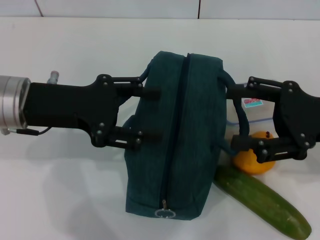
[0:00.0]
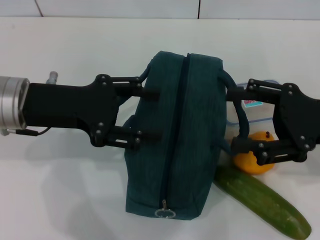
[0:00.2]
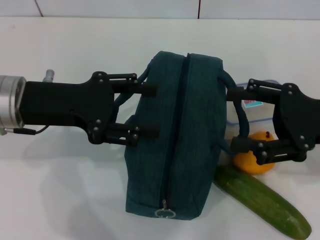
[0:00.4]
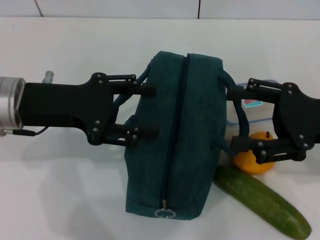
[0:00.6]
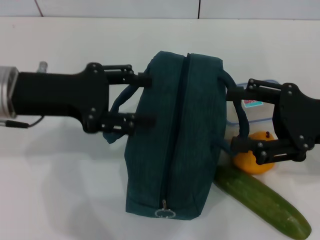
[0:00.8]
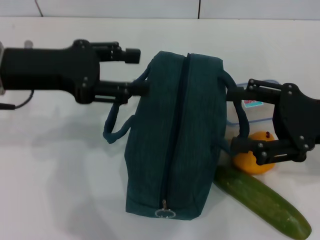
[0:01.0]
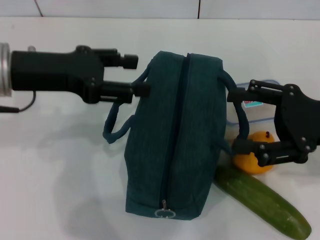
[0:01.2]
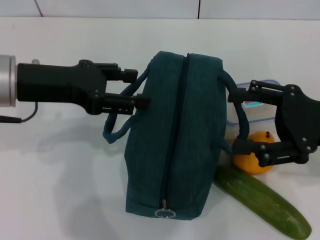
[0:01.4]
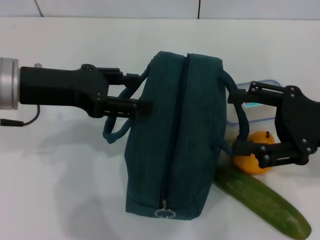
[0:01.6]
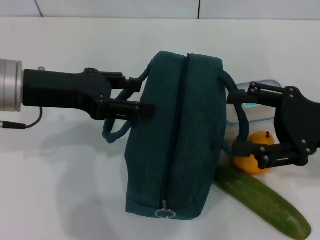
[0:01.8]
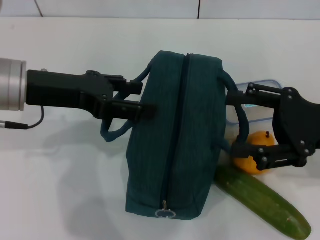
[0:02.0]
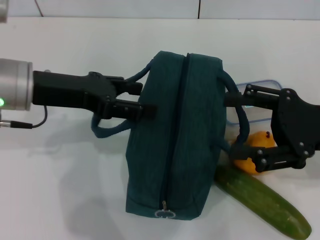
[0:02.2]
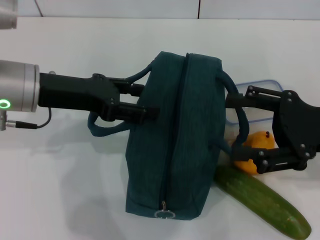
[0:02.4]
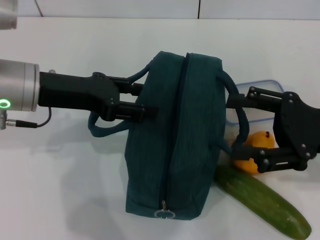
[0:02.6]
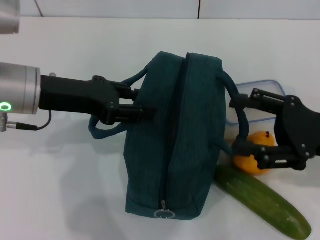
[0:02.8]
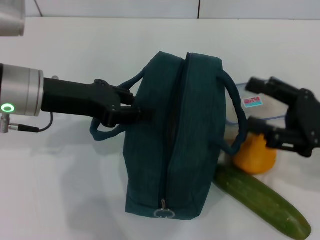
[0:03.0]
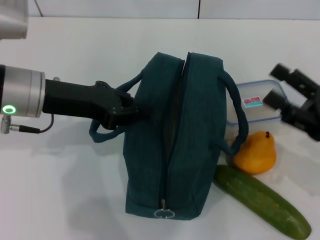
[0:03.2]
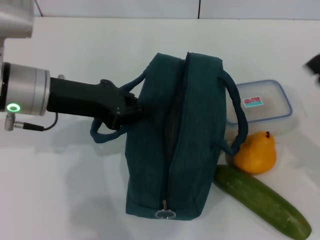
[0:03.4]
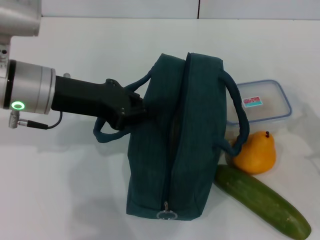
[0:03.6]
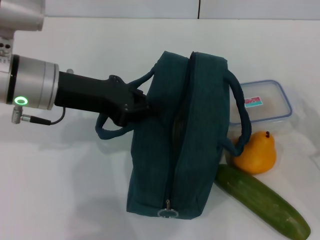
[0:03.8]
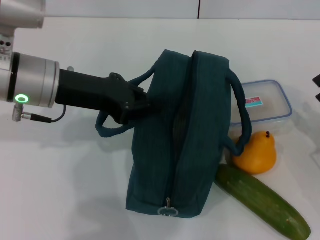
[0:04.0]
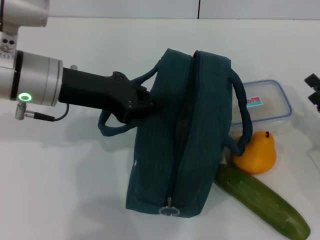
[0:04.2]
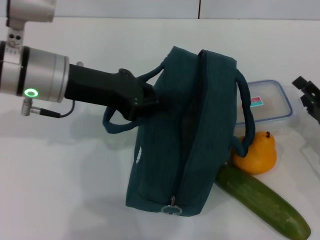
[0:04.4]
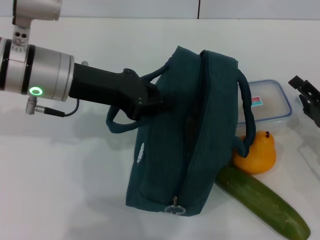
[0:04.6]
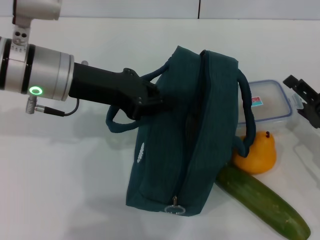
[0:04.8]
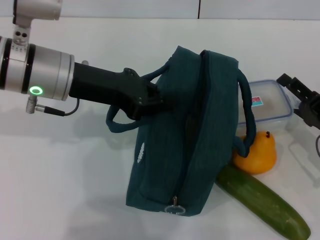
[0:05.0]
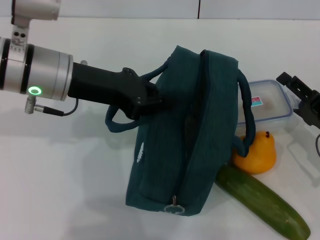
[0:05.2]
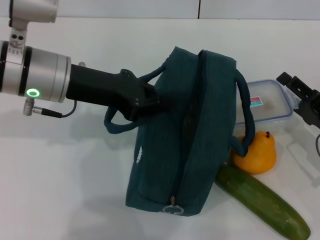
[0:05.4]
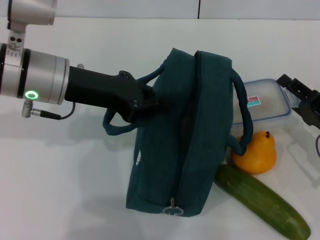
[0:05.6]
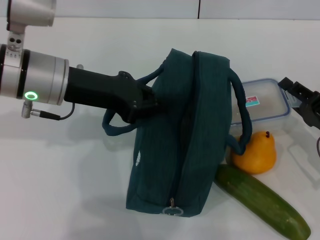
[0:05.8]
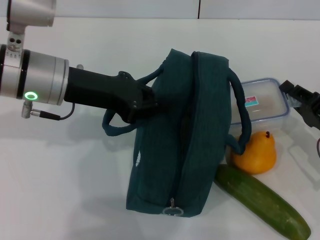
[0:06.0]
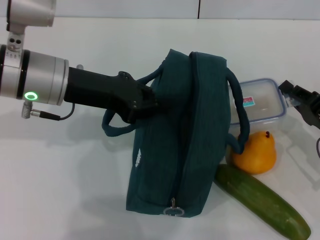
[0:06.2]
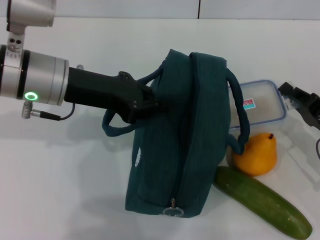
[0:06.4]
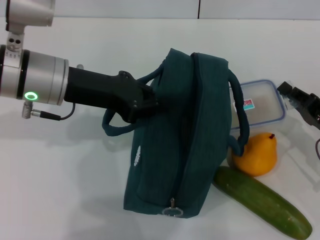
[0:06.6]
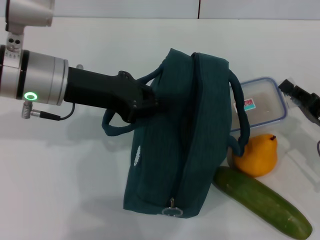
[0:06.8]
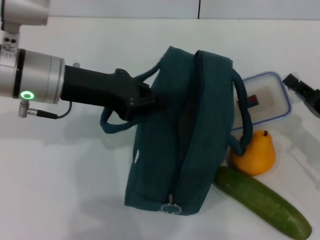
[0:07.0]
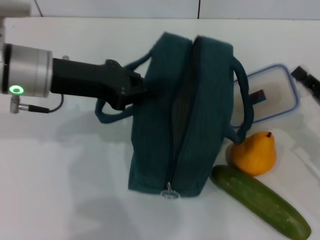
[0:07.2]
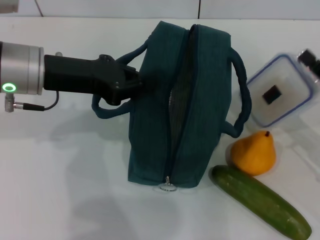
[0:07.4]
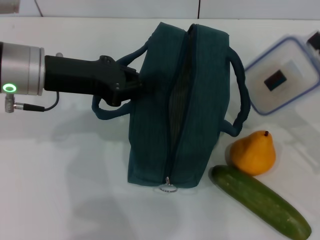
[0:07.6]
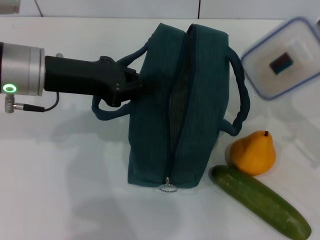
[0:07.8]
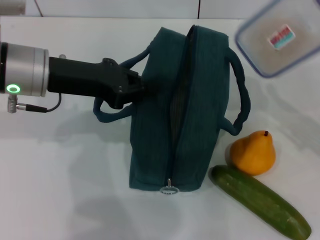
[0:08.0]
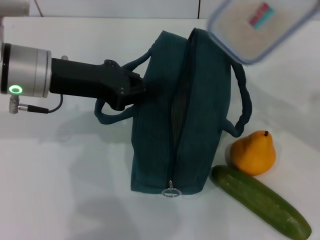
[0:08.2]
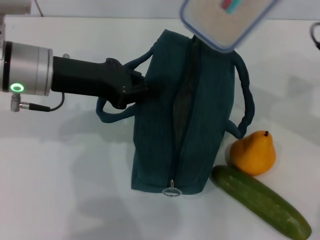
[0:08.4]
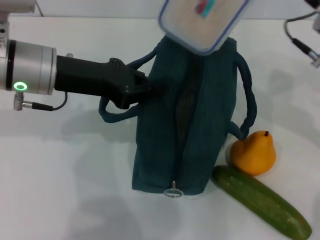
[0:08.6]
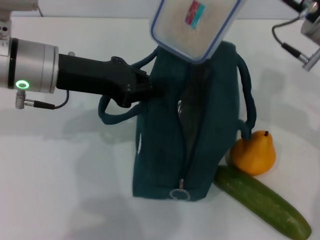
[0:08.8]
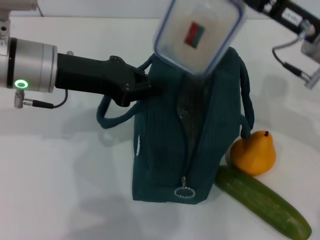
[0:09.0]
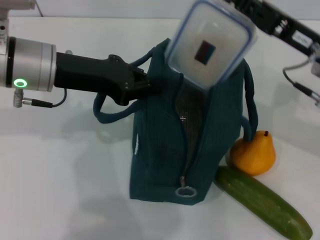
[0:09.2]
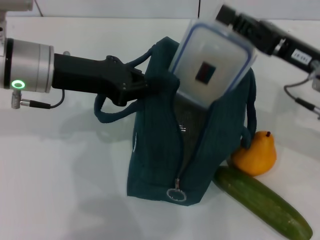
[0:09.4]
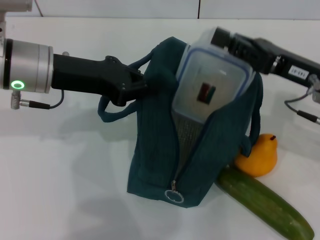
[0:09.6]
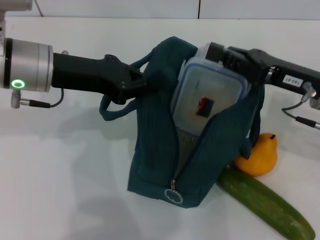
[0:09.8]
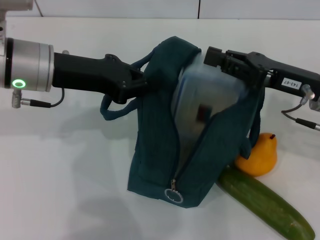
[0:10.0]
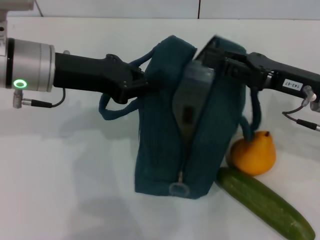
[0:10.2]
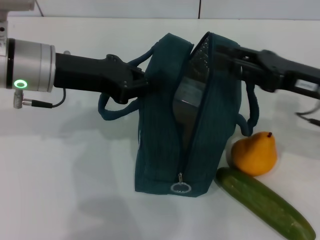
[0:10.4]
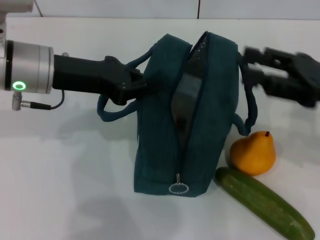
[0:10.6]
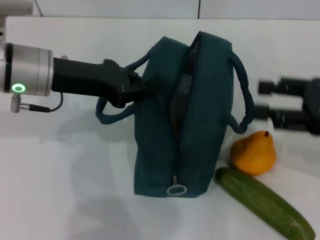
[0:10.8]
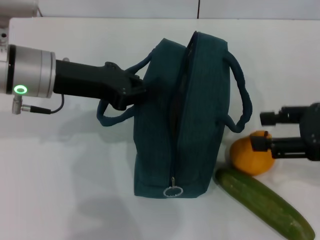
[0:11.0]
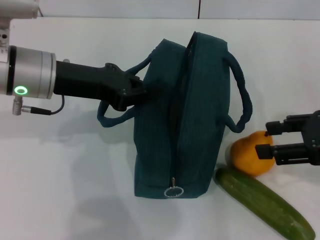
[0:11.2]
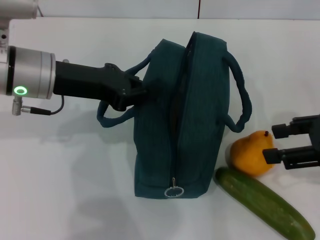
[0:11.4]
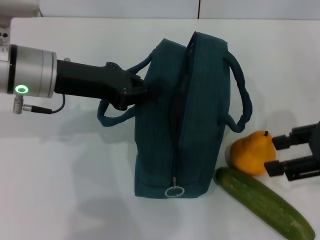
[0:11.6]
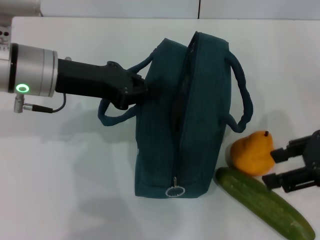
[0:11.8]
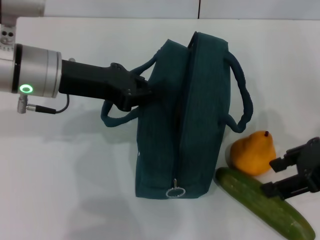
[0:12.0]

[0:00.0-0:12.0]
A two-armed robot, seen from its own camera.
Step, 0:00.0 to 0:04.0: Hold the lunch bag with your left hand.
Step, 0:04.2 to 0:06.0: Pick up the lunch box with your right hand.
Step, 0:06.2 to 0:10.2: Place the lunch box into the lunch bag with your right hand.
0:01.6 to 0:03.0: The left gripper closes up.
0:03.0 to 0:04.4: The left gripper closes; the right gripper travels downward by some 10 cm.
0:04.4 to 0:06.0: The right gripper closes up.
0:06.0 to 0:07.6: The right gripper is displaced upward by some 5 cm, and closes its fingers.
0:07.6 to 0:09.0: The right gripper shifts some 15 cm to the left, upward and forward.
0:09.0 to 0:10.4: The right gripper ends up roughly 5 cm from where it was.
0:10.4 to 0:12.0: The right gripper goes roughly 5 cm upward and backward, and opens its fingers.

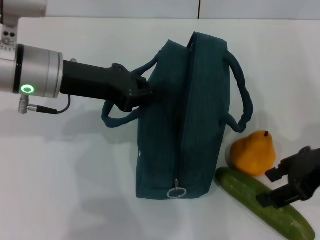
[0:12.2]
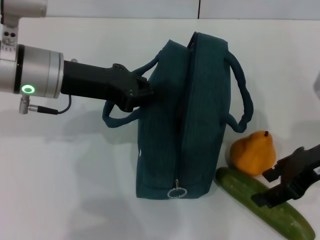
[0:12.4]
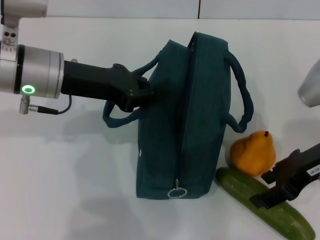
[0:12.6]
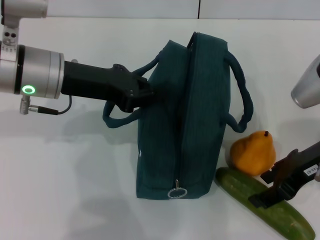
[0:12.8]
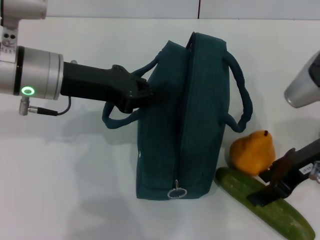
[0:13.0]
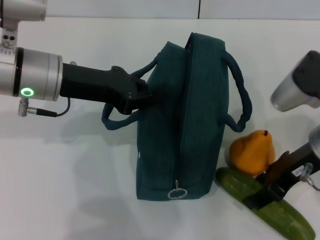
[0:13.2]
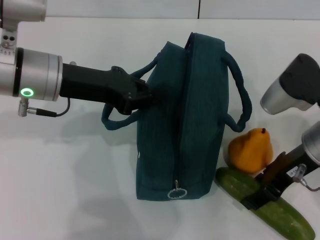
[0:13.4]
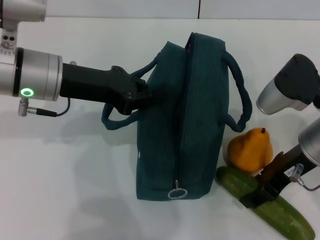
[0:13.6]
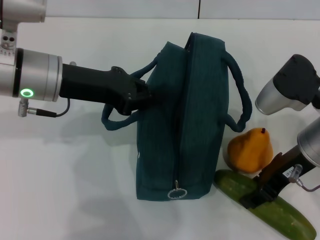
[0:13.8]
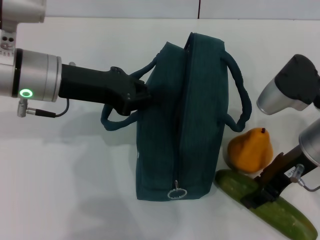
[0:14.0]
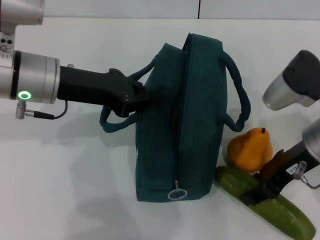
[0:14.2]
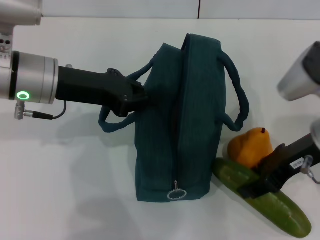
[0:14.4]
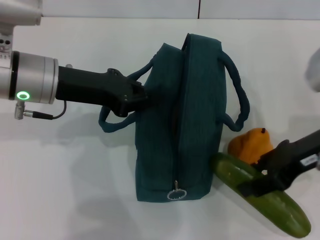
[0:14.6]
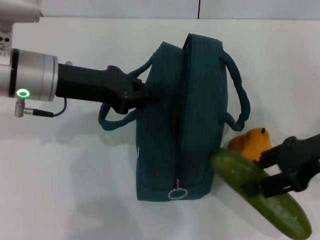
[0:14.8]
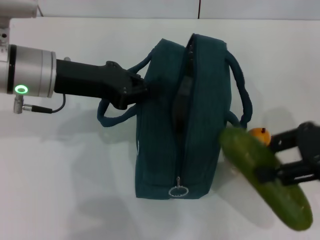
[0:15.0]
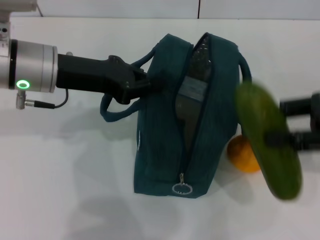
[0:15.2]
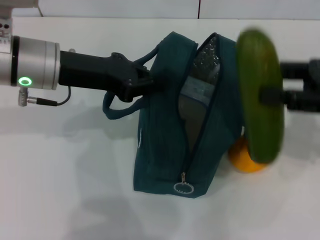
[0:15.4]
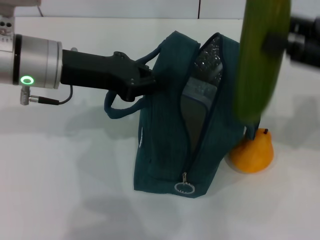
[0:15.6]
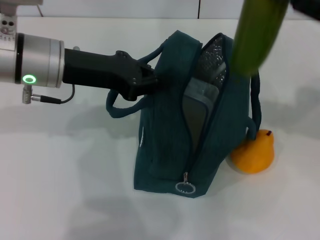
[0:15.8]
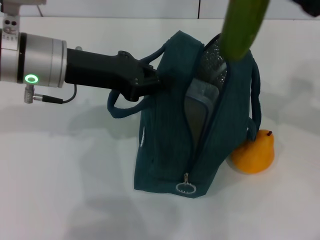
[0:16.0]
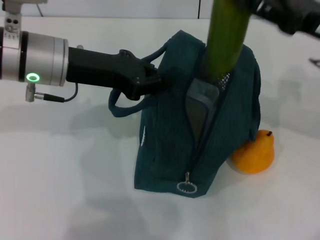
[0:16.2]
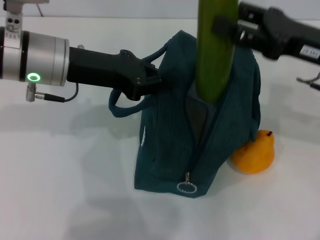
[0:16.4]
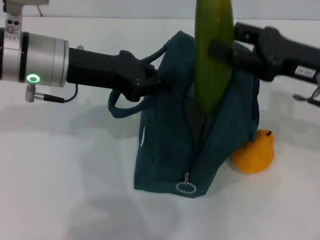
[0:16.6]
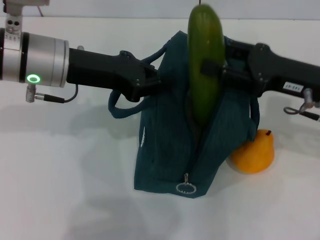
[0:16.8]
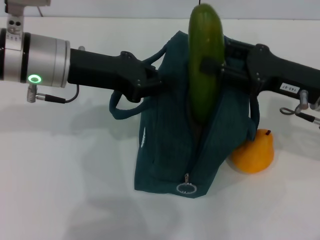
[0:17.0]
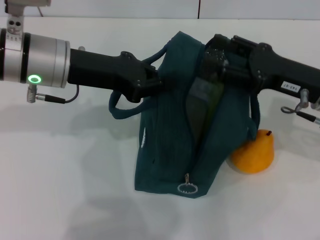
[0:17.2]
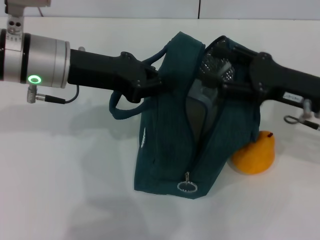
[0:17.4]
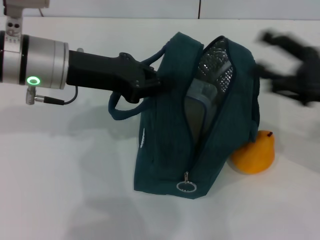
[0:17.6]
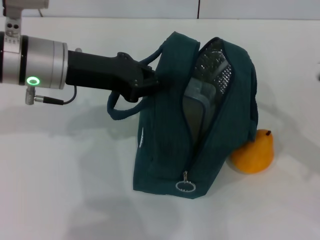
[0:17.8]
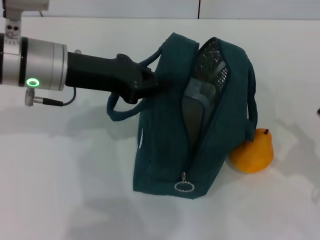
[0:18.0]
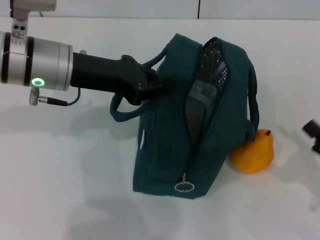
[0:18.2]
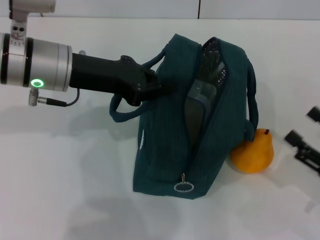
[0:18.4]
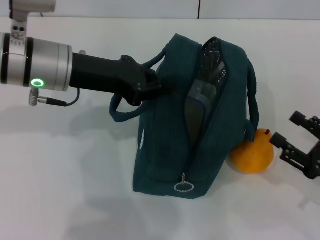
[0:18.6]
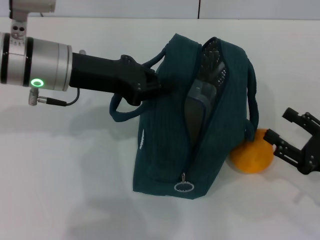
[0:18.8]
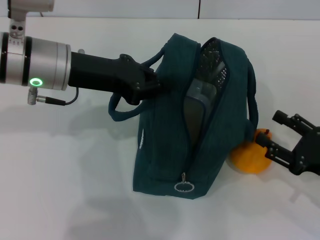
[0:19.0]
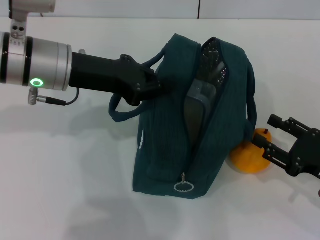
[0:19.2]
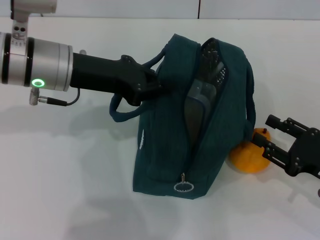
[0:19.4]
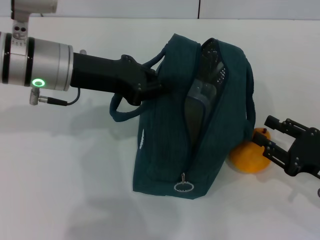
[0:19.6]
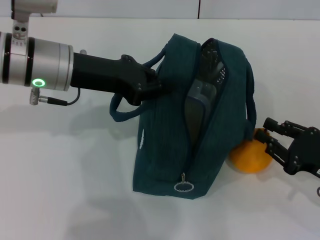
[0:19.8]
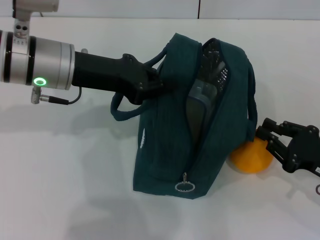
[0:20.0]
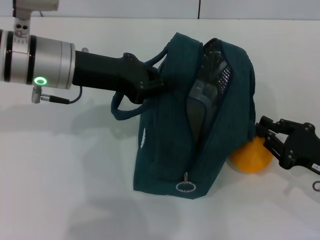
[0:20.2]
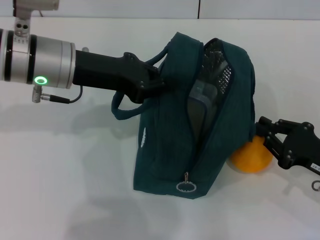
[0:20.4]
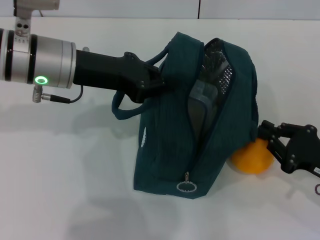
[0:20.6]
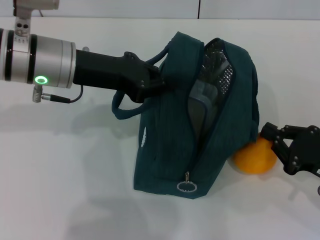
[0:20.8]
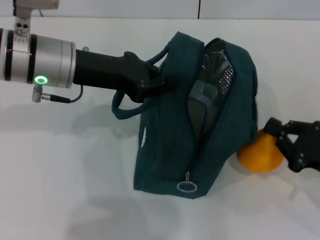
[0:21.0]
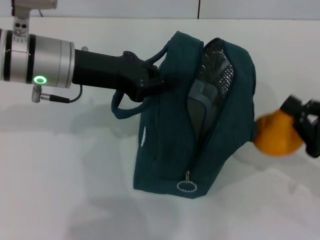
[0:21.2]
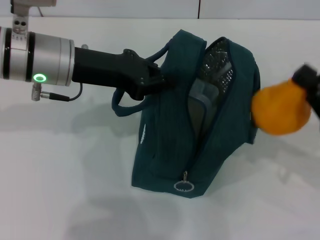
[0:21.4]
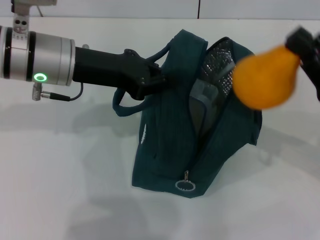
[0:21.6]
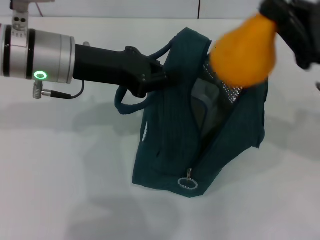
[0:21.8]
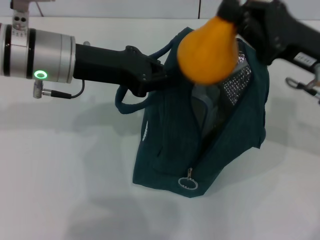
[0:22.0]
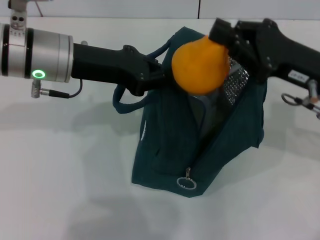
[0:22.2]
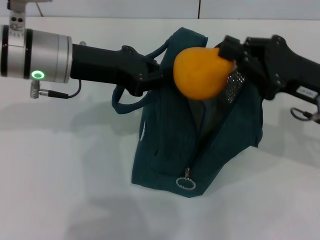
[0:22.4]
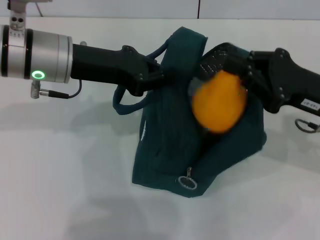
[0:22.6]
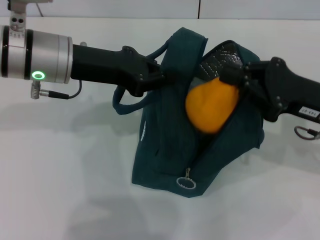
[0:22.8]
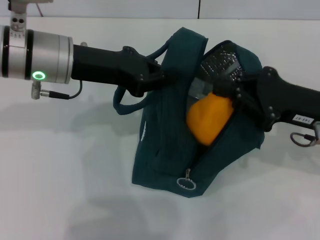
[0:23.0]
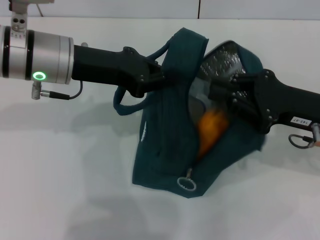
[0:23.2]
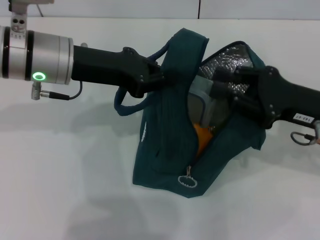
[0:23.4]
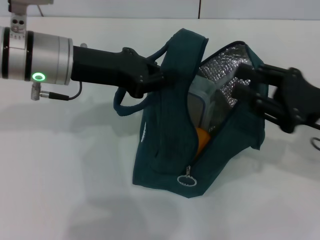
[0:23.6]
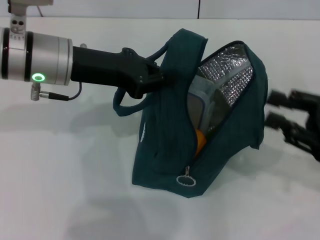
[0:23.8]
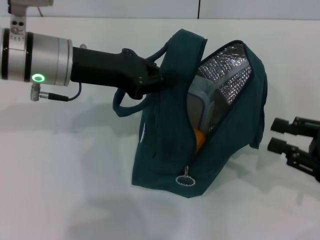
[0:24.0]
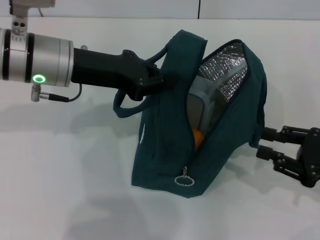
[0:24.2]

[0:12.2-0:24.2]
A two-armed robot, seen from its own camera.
Step, 0:14.0 to 0:17.2: Put the cucumber into the lunch bag with your right hand.
Step, 0:17.4 to 0:20.6: Grab the pear with your right hand.
0:12.2 to 0:13.8: The right gripper goes roughly 5 cm to the left.
0:13.8 to 0:15.2: The right gripper shifts roughly 10 cm to the right.
0:15.2 to 0:16.6: The right gripper goes some 10 cm to the left and forward.
0:16.6 to 0:18.2: The right gripper travels backward, downward and to the right by approximately 20 cm, and opens up.
0:18.2 to 0:19.8: The right gripper shifts by roughly 5 cm, and closes its fingers.
0:19.8 to 0:21.2: The right gripper closes up.
0:21.2 to 0:22.6: The right gripper travels forward, upward and to the left by some 10 cm.
0:22.6 to 0:24.2: The right gripper moves to the right, backward and downward, roughly 10 cm.
